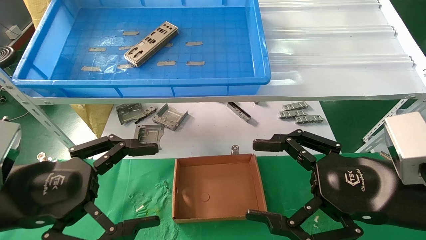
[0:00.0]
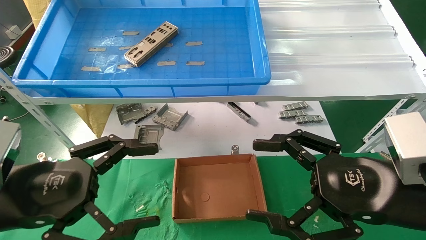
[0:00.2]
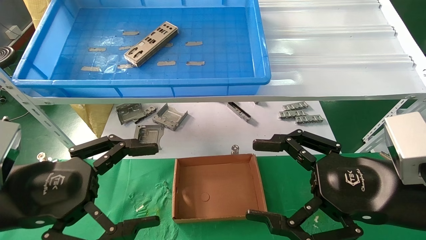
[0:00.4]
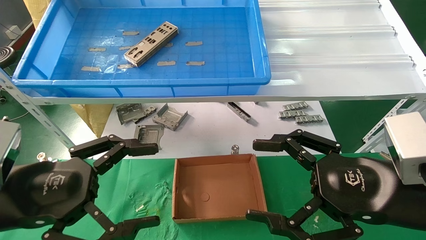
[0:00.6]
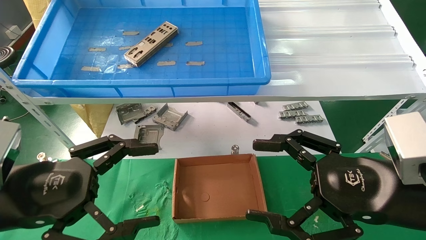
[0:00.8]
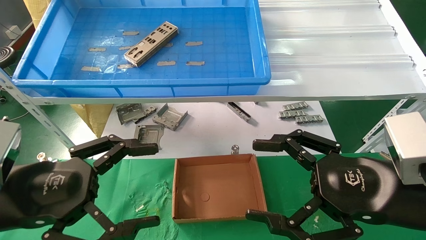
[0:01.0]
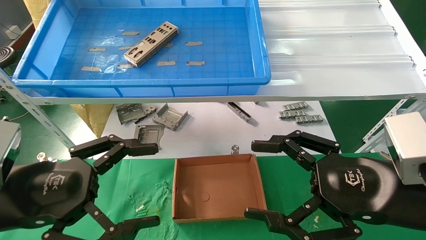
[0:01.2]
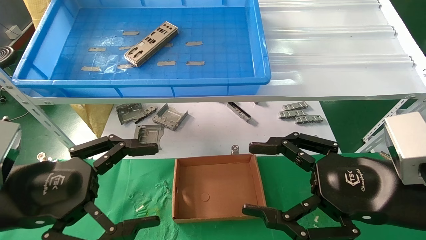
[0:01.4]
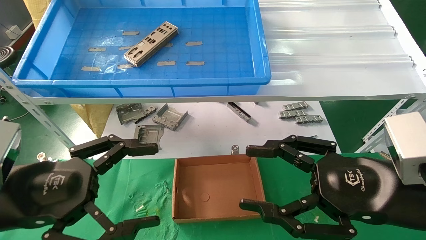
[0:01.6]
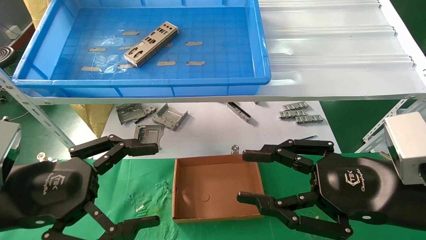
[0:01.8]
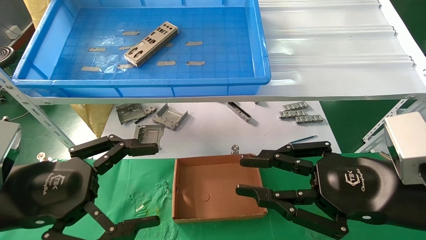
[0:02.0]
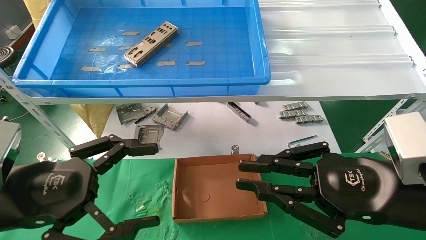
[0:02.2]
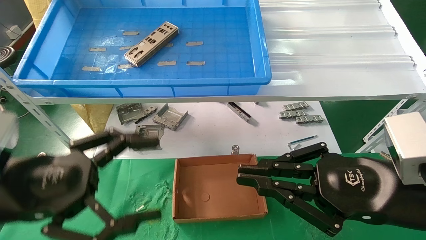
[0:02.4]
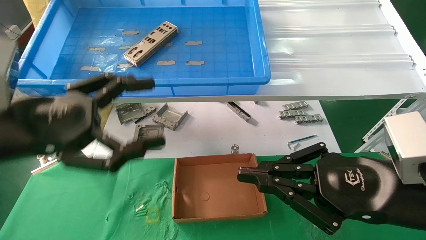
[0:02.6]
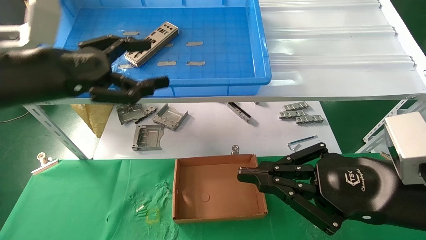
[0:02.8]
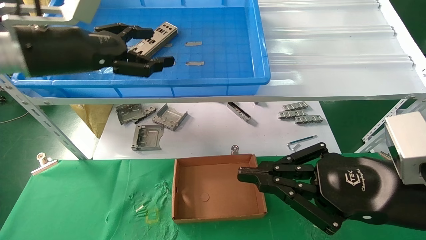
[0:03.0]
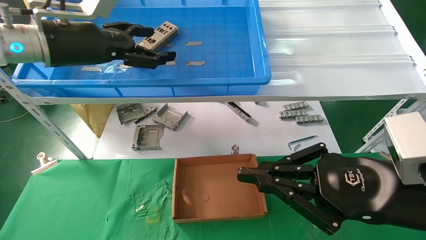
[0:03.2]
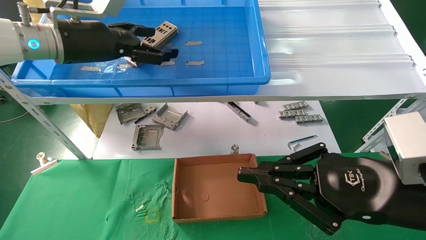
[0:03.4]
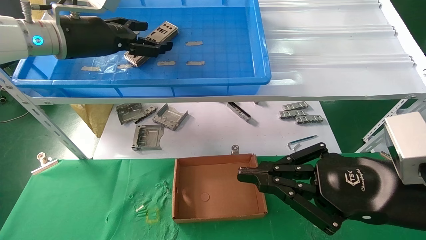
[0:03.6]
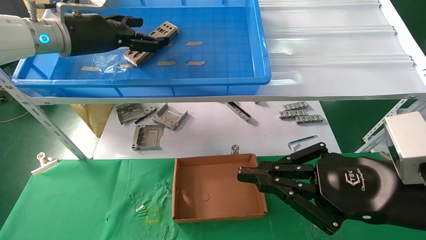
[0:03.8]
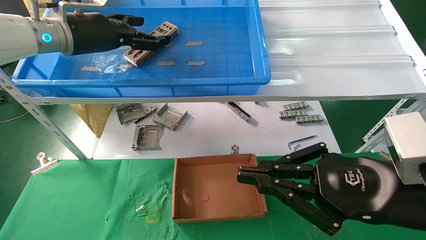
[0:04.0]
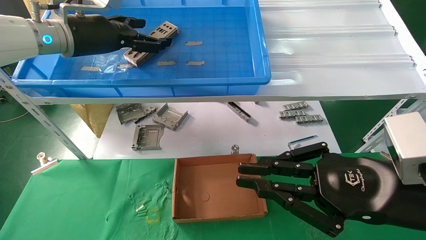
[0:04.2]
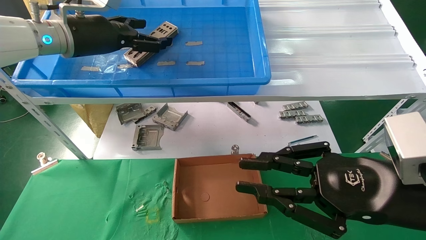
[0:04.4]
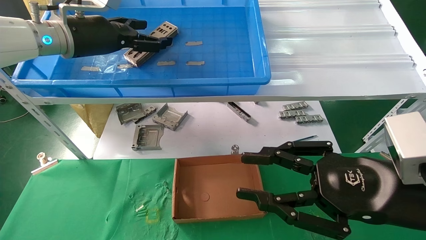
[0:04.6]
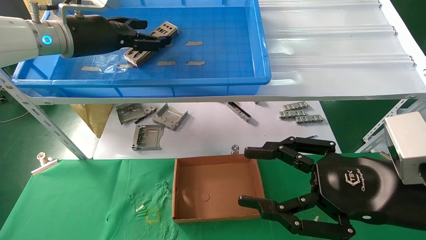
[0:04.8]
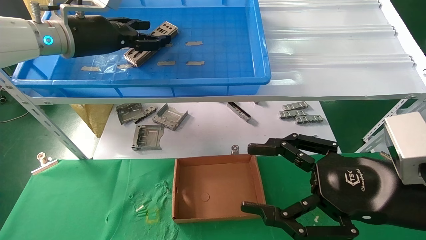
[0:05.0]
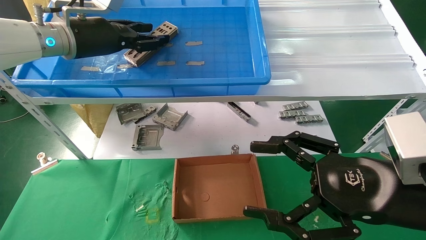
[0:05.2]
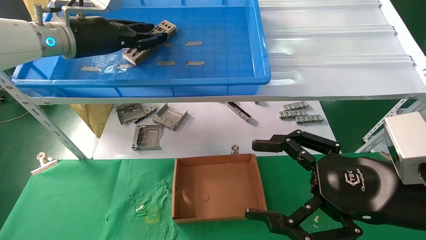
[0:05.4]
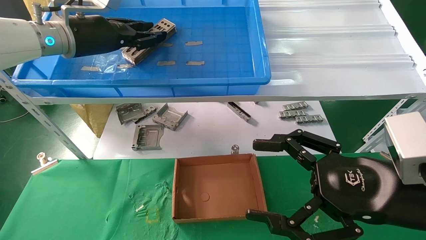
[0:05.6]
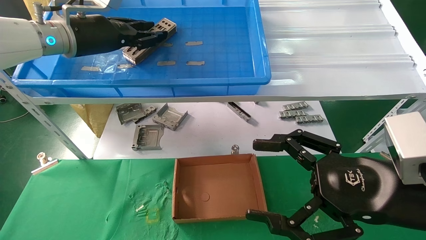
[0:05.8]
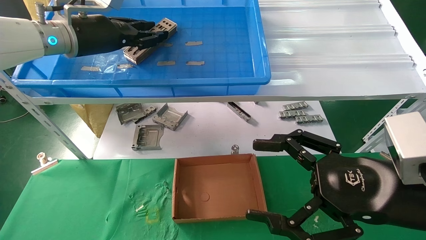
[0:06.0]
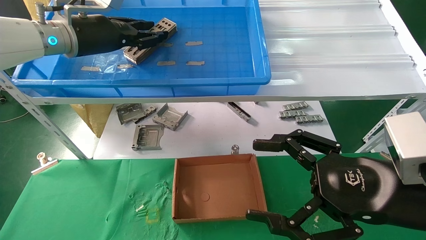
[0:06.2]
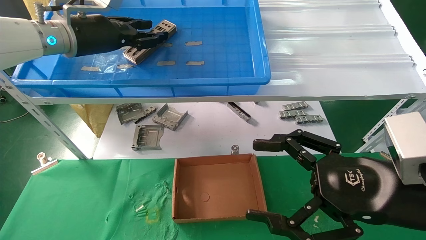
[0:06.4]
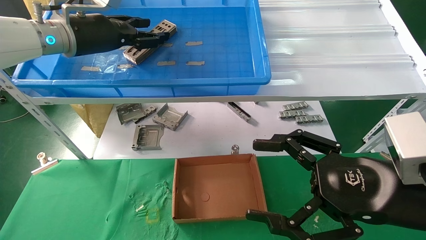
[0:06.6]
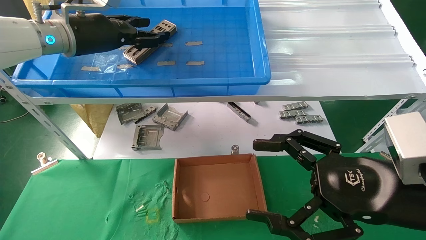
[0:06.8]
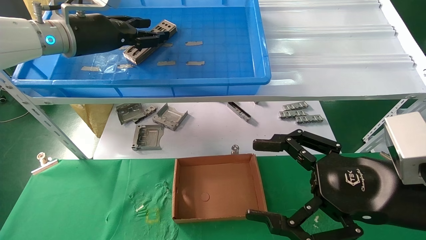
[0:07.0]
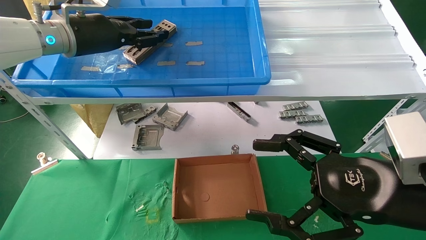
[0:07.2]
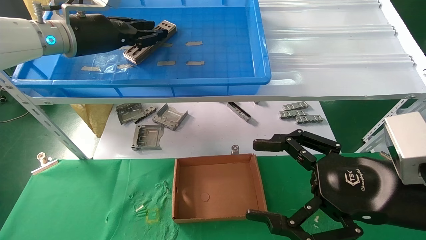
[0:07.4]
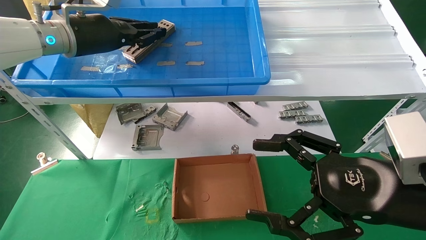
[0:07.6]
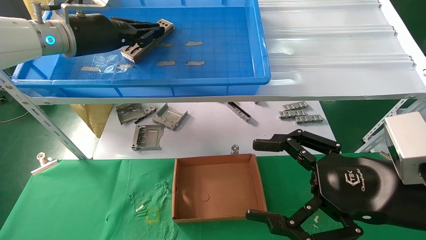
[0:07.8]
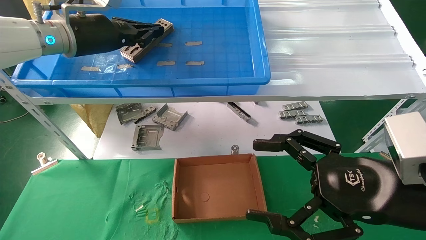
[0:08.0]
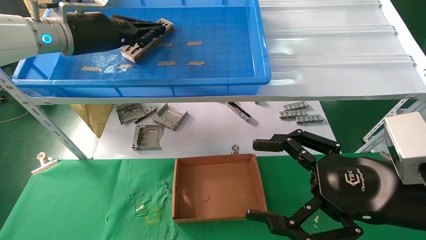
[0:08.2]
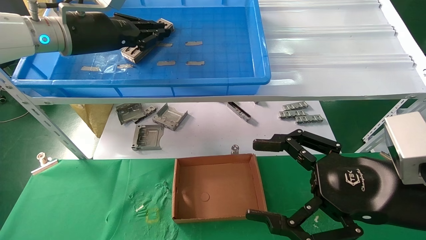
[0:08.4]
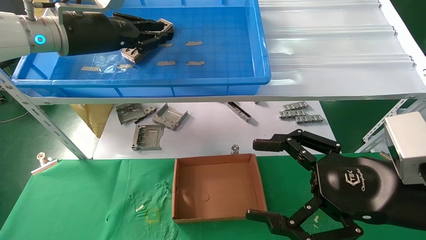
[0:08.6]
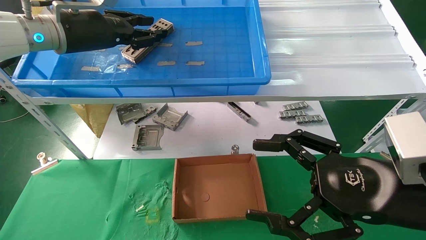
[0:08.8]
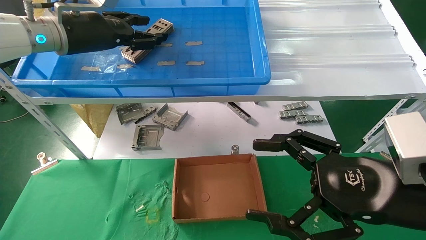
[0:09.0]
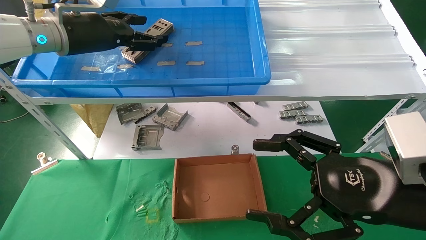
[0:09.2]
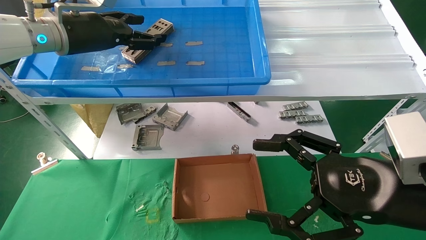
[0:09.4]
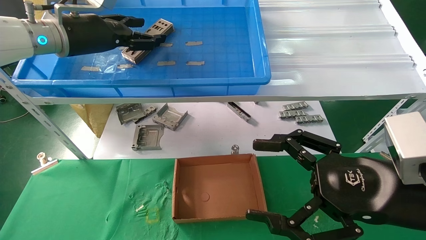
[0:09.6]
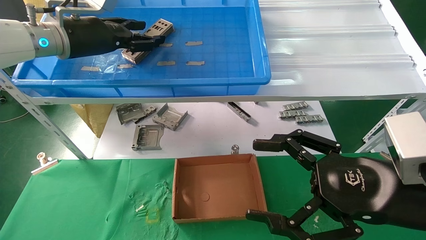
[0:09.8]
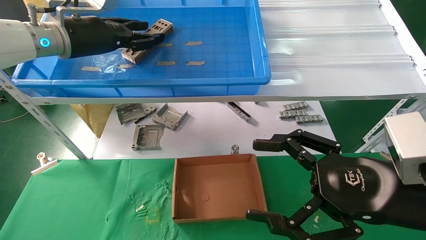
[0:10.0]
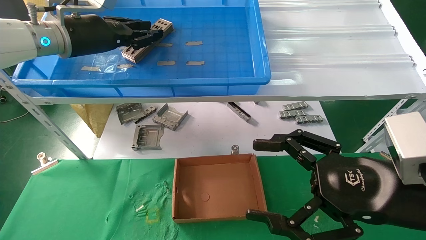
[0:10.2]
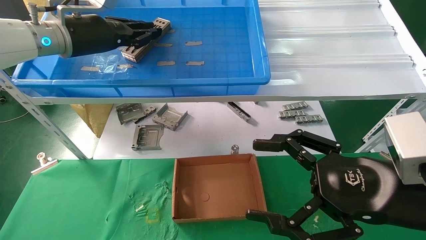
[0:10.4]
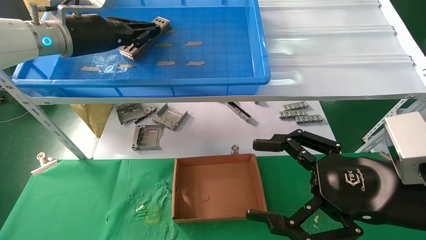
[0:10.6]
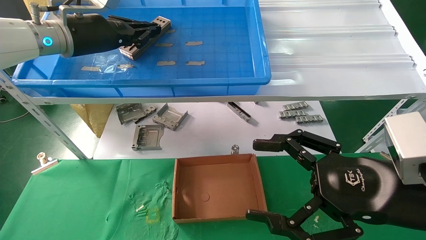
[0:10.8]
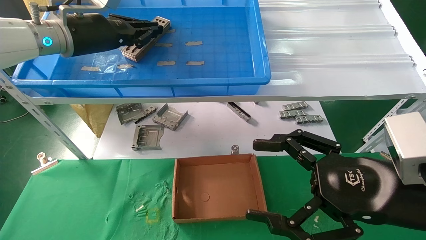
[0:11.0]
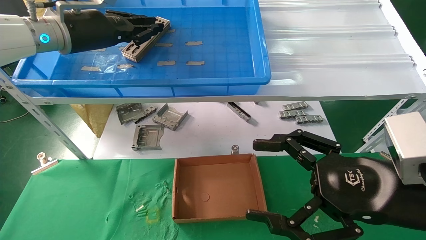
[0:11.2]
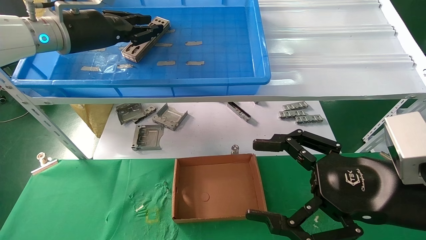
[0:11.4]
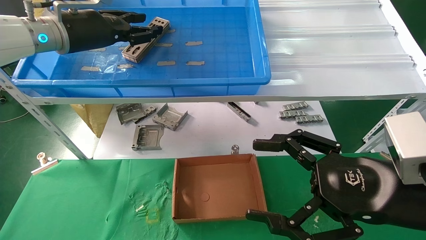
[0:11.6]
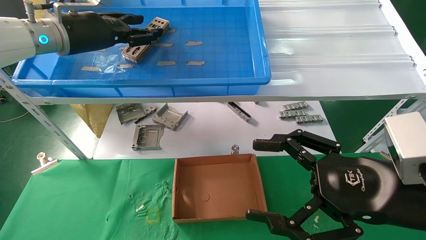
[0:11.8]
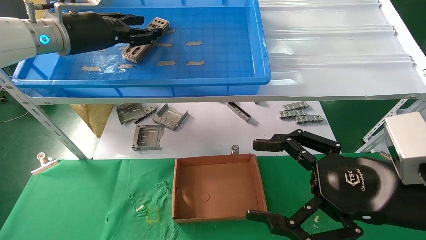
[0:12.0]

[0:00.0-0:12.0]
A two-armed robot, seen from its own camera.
Task of the whole recording: pick up the parts on the tray and put them in the cardboard box.
0:00.0 to 0:01.6: Both grippers stay put.
0:01.6 to 0:03.0: The left gripper is displaced upward and forward by approximately 20 cm. The right gripper closes.
0:03.0 to 0:04.4: The left gripper moves forward, some 10 cm.
0:04.4 to 0:06.0: The left gripper closes up. Meanwhile the right gripper opens up.
0:06.0 to 0:07.6: Both grippers stay about where they are.
0:07.6 to 0:10.4: The grippers make only small movements.
0:10.4 to 0:12.0: Both grippers stay about where they are.

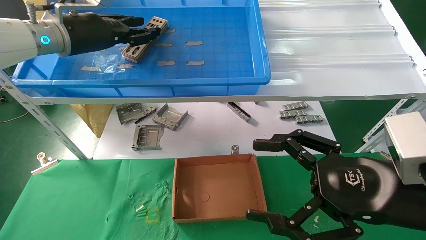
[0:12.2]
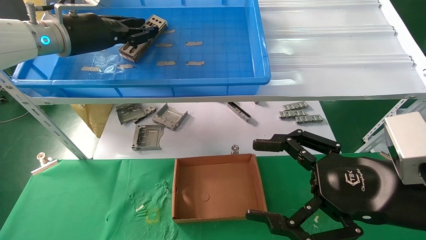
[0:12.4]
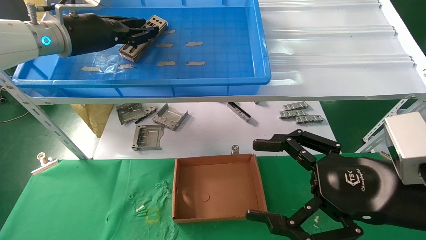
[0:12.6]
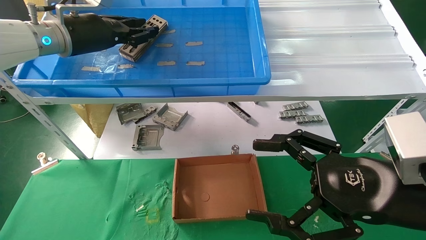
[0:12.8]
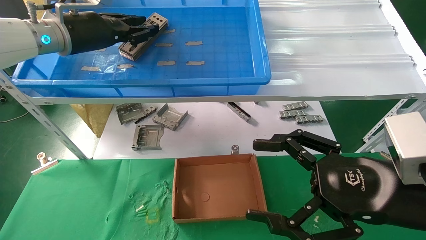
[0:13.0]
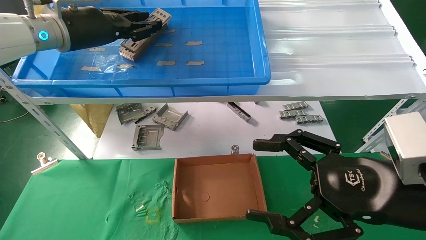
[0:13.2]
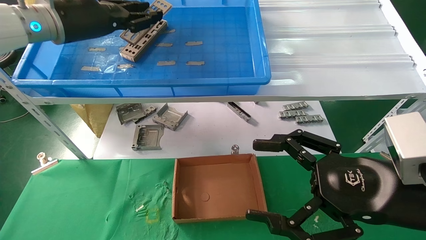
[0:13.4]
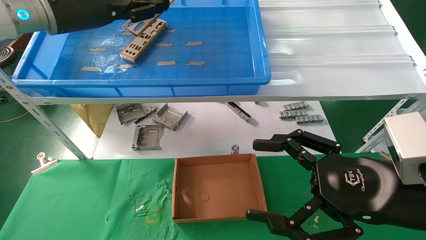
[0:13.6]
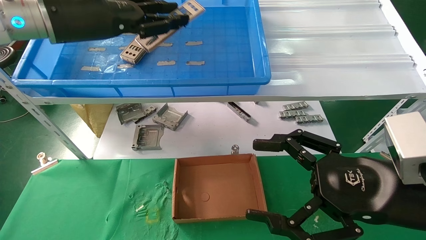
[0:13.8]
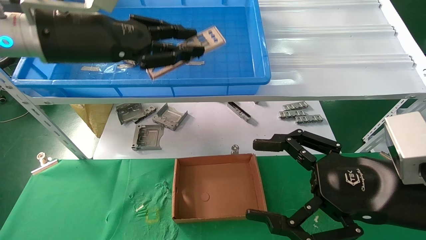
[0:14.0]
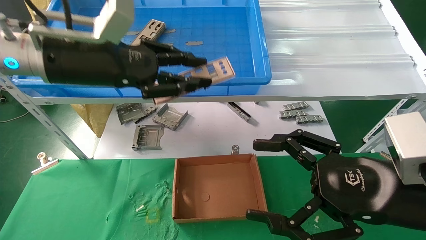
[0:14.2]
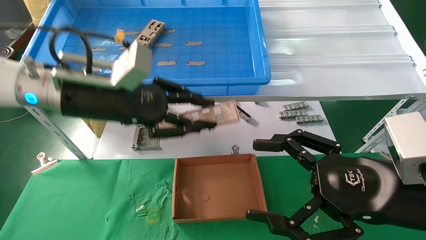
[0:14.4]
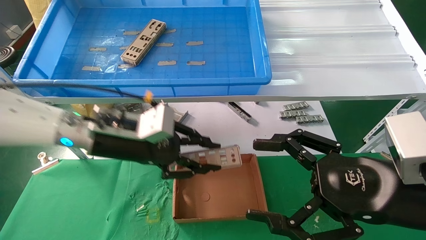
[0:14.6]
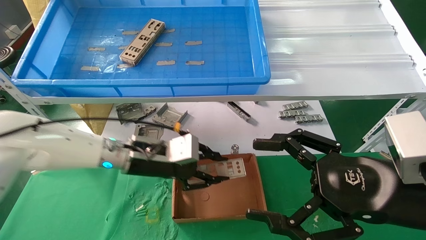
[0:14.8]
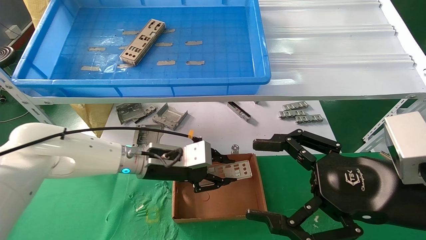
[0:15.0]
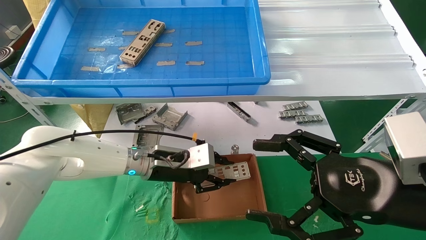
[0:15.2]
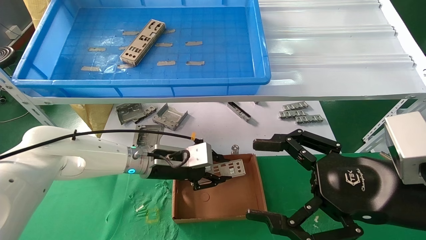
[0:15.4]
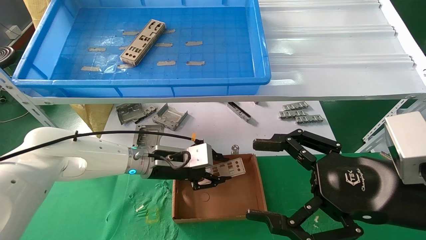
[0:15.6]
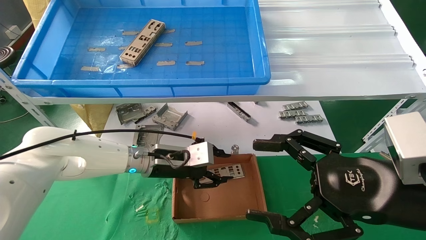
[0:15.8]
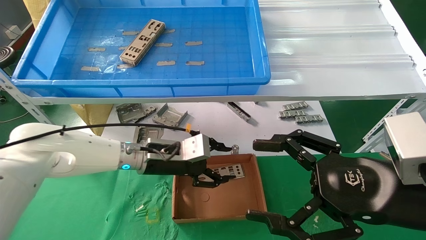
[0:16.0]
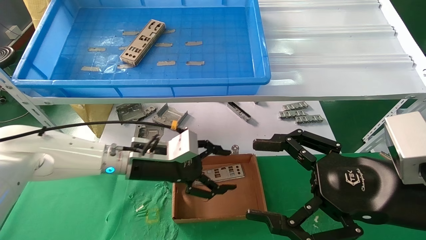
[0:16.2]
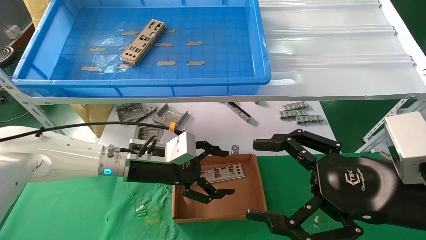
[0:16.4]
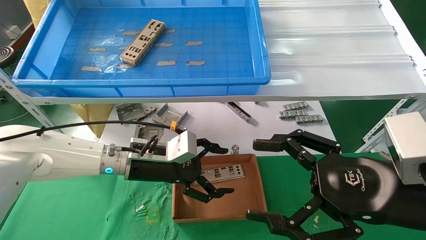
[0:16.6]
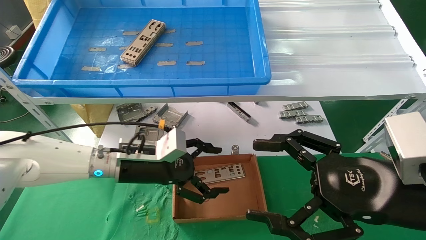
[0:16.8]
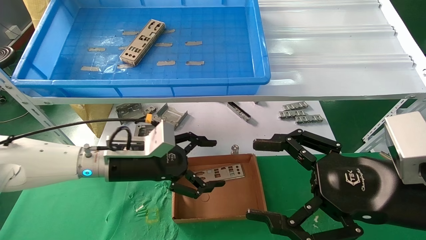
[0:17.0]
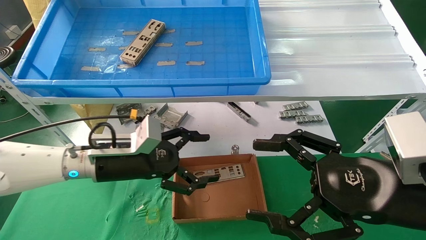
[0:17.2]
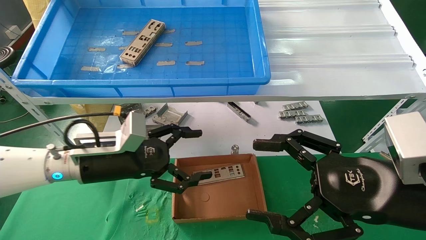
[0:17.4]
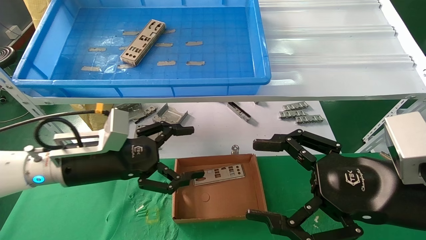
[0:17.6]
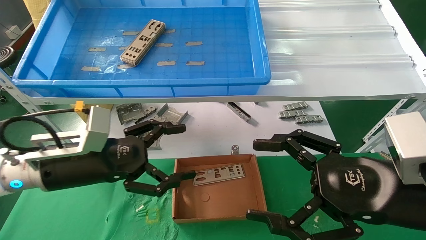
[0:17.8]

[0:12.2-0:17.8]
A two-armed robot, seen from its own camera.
Task of the whole recording: pick up the parts on the tray and put them in the cardboard box.
Step, 0:12.8 to 0:15.8: Place the IO bracket into the ingredient slot.
0:12.2 to 0:13.6: The left gripper shifts by about 5 cm.
0:13.6 to 0:15.0: The left gripper travels downward and to the right by about 30 cm.
0:15.0 to 0:16.4: The left gripper opens its fingers.
0:16.4 to 0:17.8: The left gripper is displaced to the left and backward by some 15 cm.
